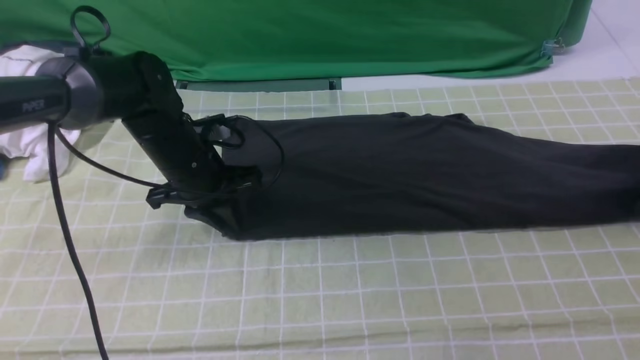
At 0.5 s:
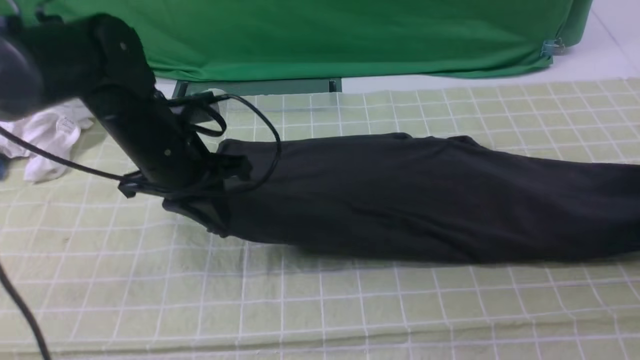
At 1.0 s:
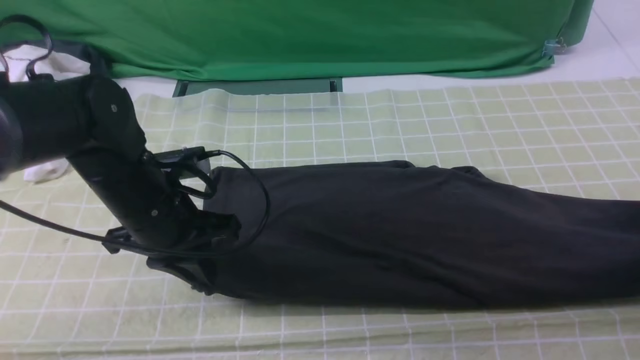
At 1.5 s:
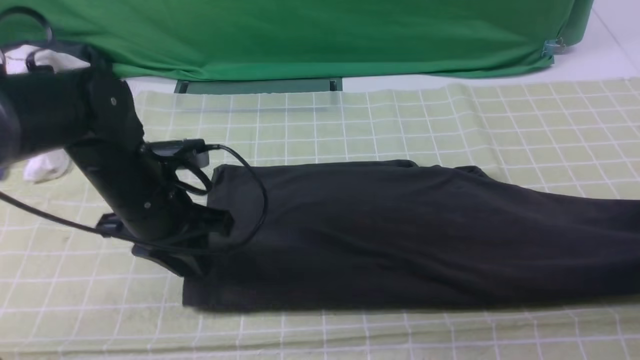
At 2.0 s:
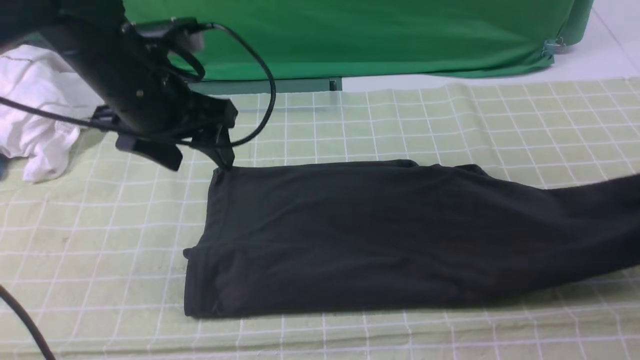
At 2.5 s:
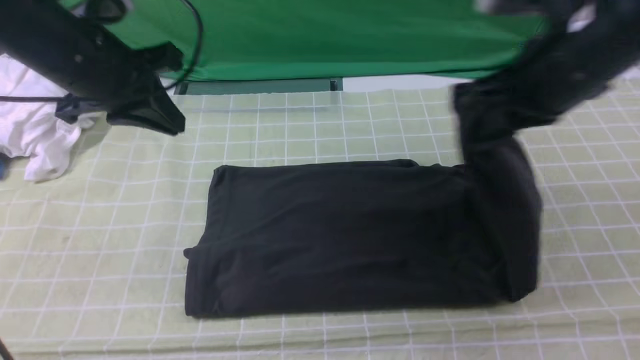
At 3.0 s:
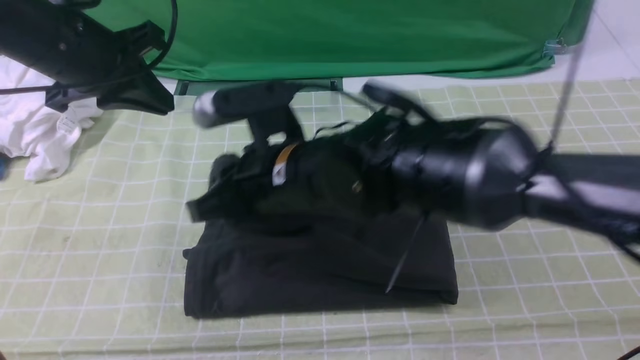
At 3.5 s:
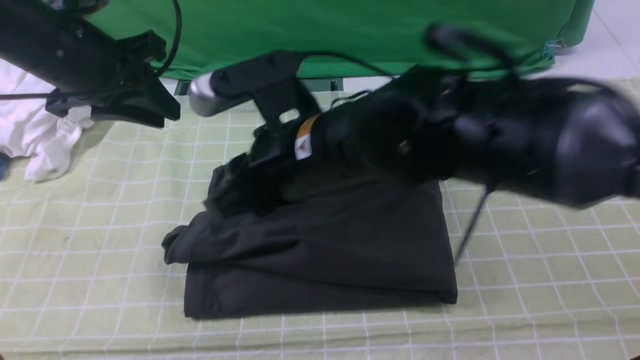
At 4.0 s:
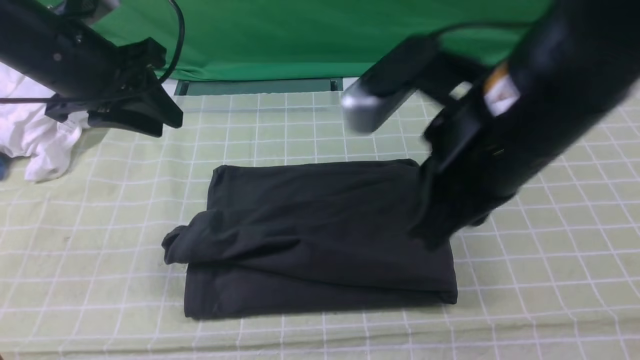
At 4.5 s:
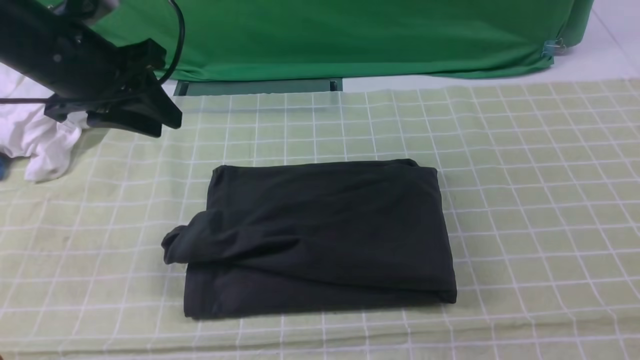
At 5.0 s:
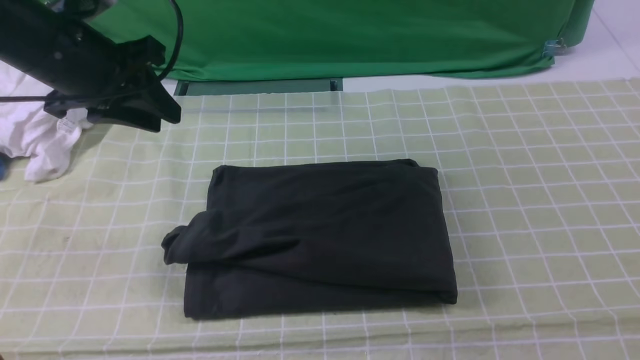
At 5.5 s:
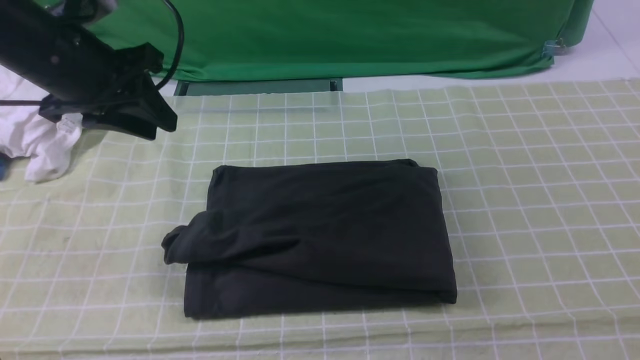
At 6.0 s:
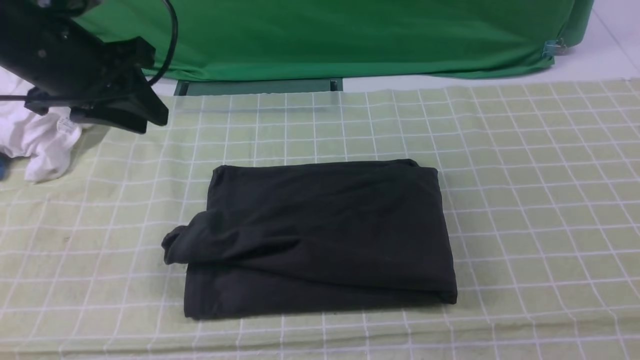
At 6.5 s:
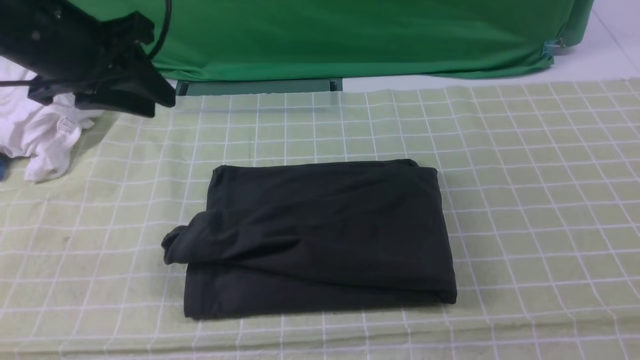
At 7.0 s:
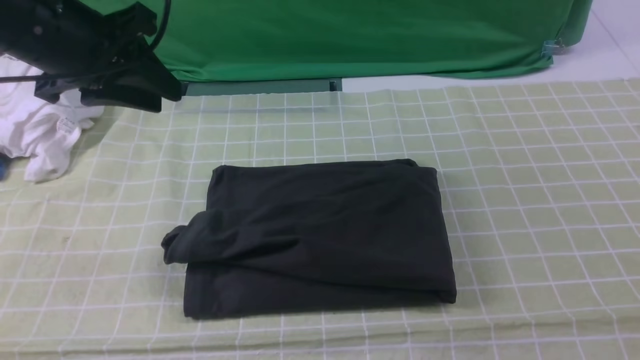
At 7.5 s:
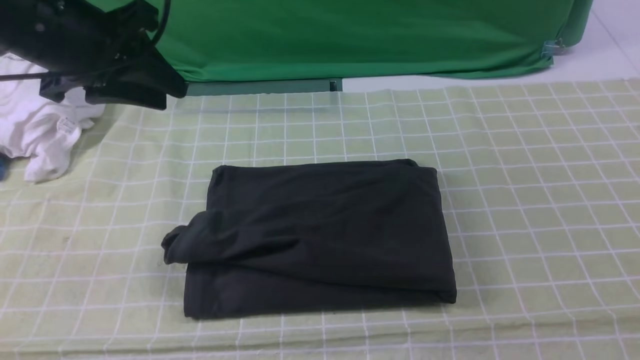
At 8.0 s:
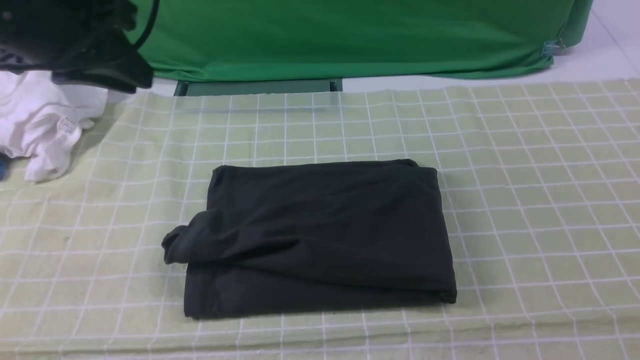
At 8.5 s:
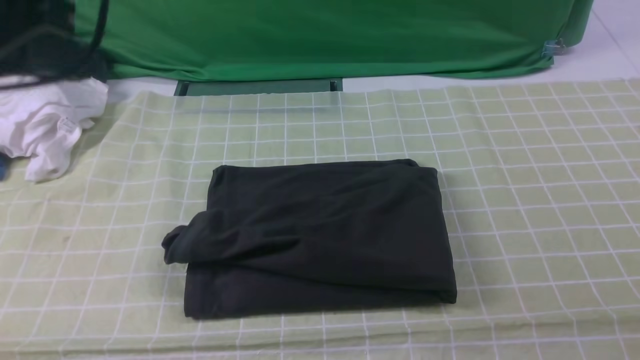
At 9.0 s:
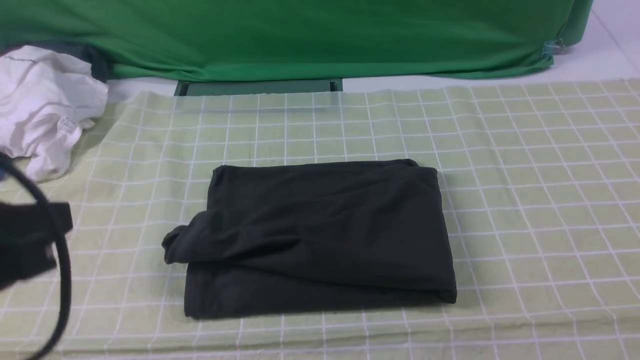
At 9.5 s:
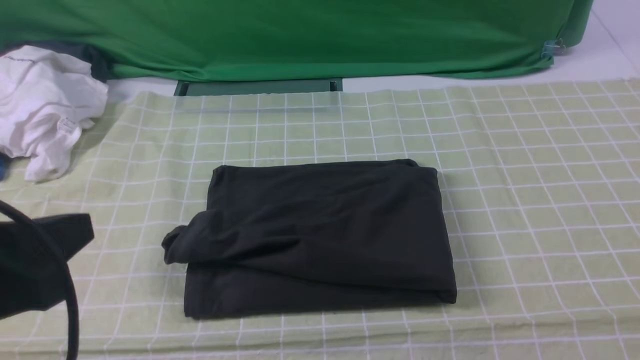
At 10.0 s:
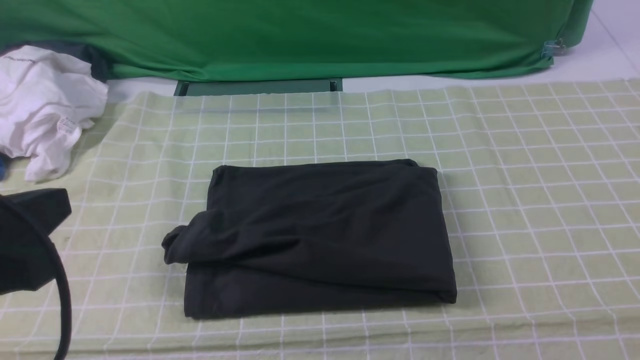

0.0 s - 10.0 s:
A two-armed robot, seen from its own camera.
Step, 0.0 s - 3.0 s: use the right arm to drag the right edge of the fabric to the left and folds it over the left edge.
0.0 s - 2.0 s: The left gripper goes some 15 cm upward, and opens, while the right gripper is displaced upward and backward by roughly 10 cm.
2.0 s - 4.0 s: The left gripper heads to the left, covering roughly 5 cm, and closes up. The right gripper goes about 30 cm to the left and backward, and opens and closes again.
4.0 s - 6.0 s: The right gripper shifts some 20 cm to the right and backward.
6.0 s - 8.0 s: The left gripper shifts by roughly 5 cm.
8.0 s - 10.0 s: The left gripper shifts about 20 cm backward.

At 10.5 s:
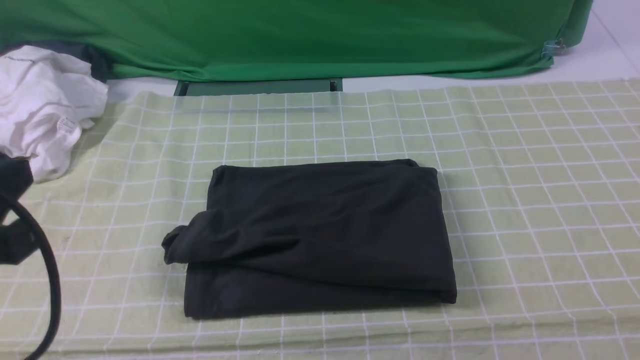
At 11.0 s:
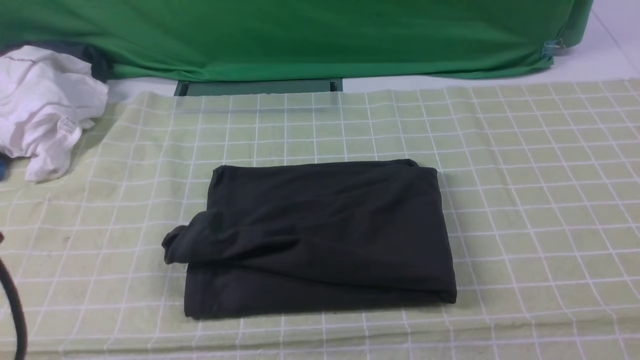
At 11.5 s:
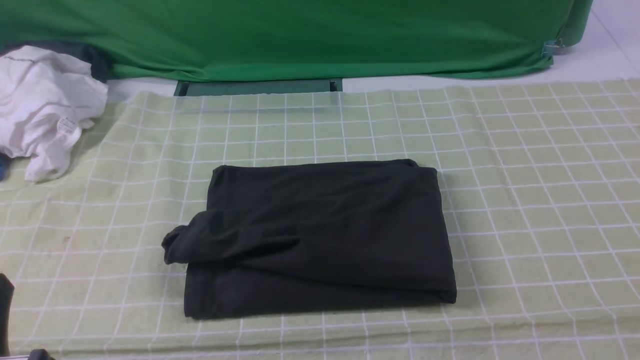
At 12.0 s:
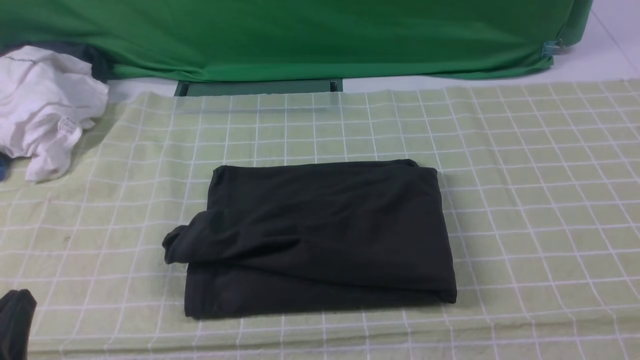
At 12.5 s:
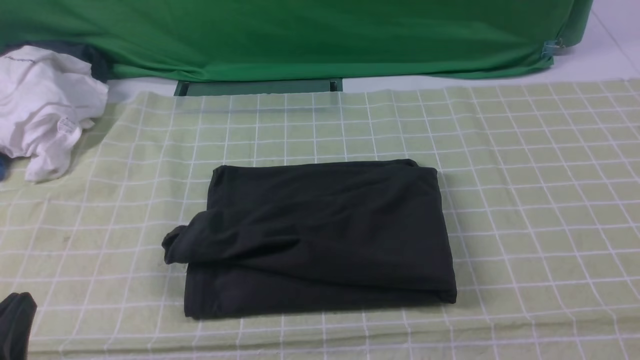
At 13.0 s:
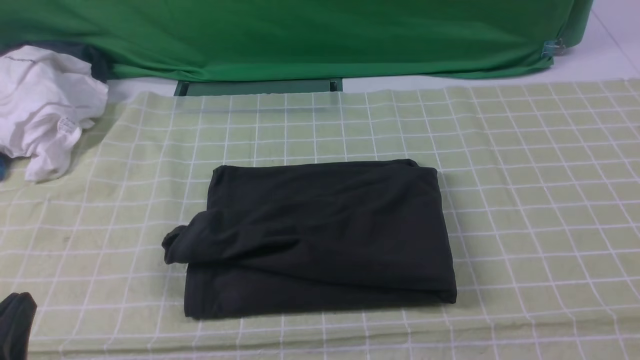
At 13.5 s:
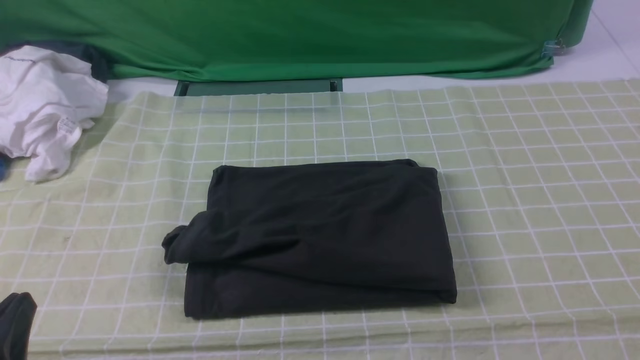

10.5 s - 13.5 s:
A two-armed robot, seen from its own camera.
10.5 s - 12.0 s: The left gripper shifts approximately 15 cm downward.
12.0 s - 13.5 s: Neither gripper changes place.
